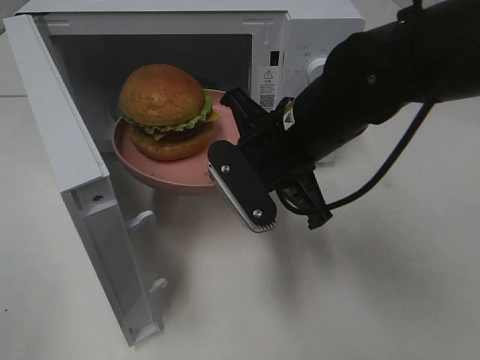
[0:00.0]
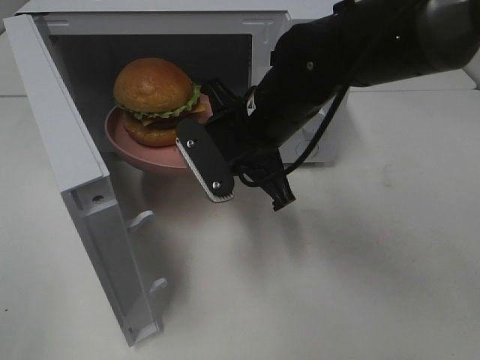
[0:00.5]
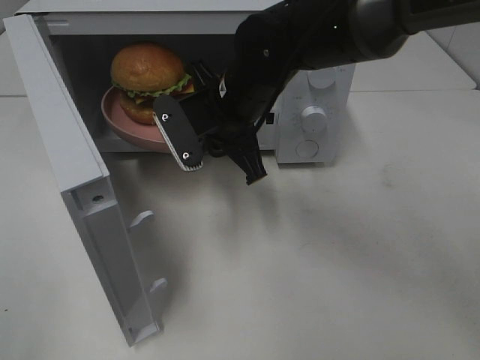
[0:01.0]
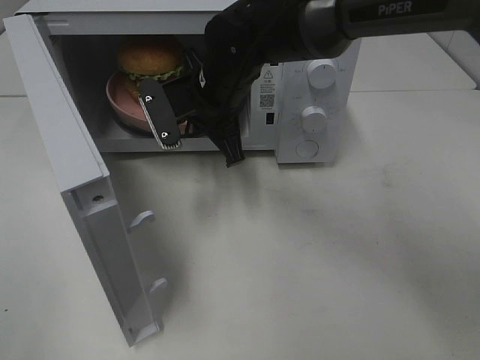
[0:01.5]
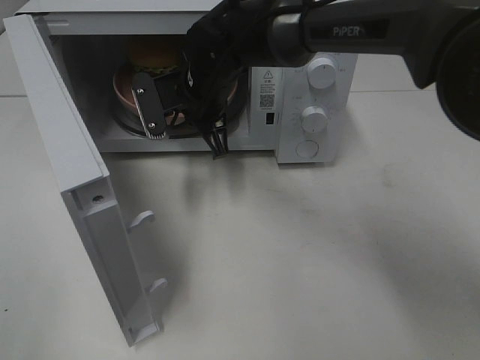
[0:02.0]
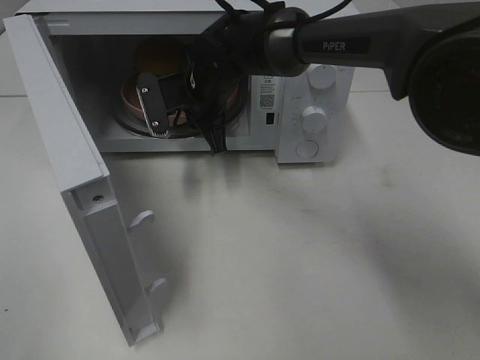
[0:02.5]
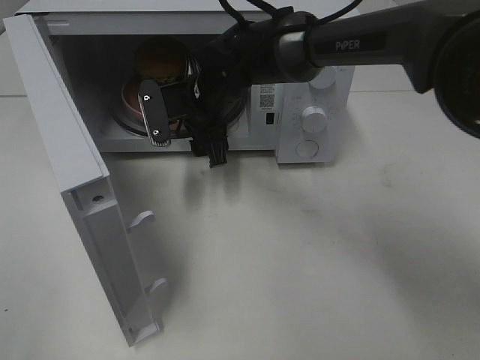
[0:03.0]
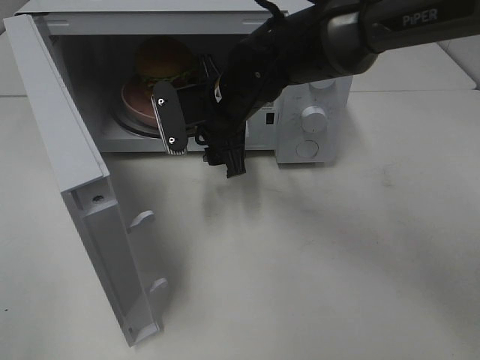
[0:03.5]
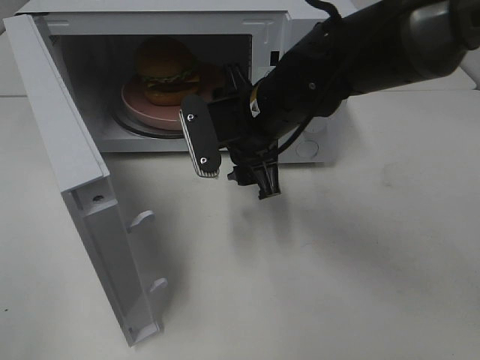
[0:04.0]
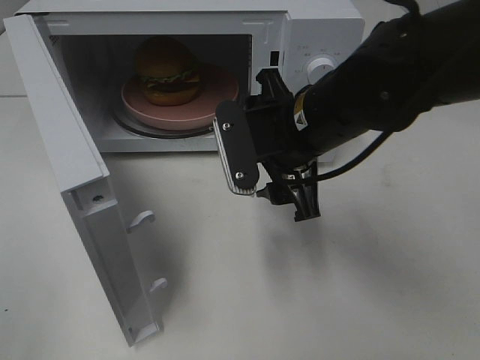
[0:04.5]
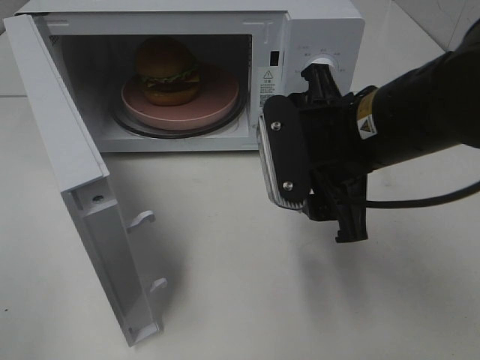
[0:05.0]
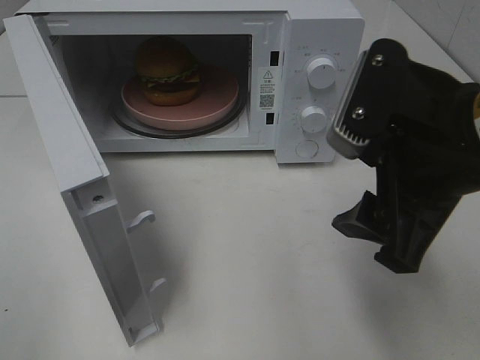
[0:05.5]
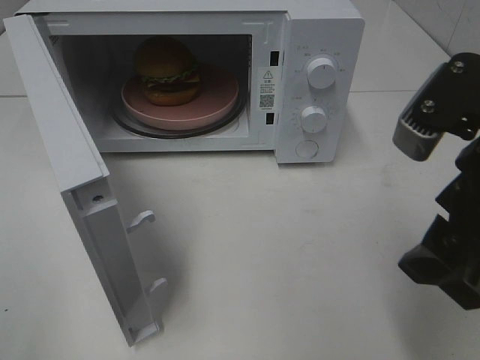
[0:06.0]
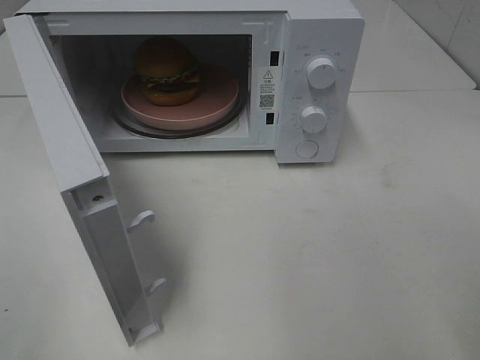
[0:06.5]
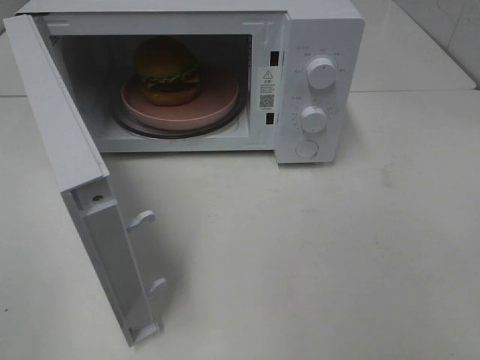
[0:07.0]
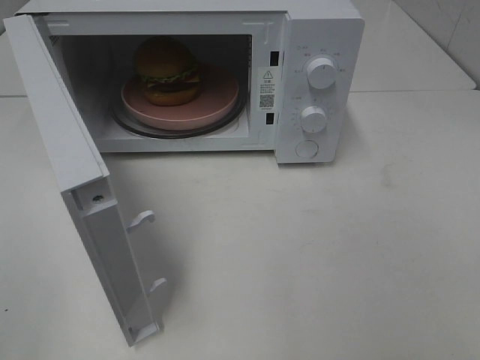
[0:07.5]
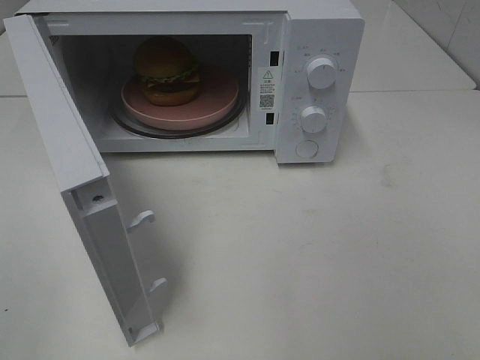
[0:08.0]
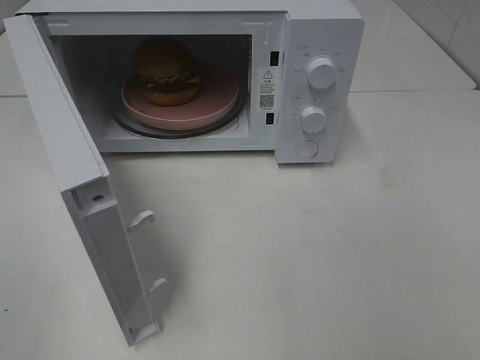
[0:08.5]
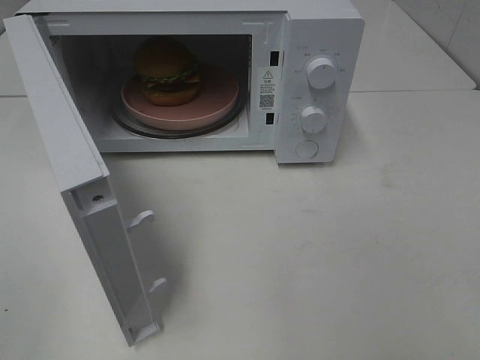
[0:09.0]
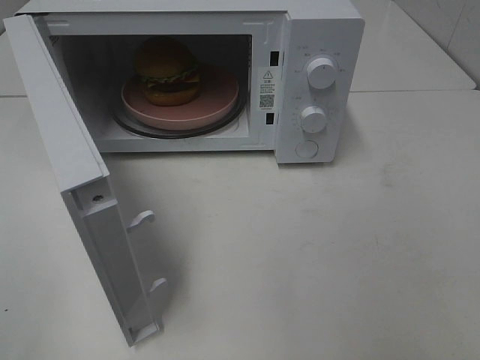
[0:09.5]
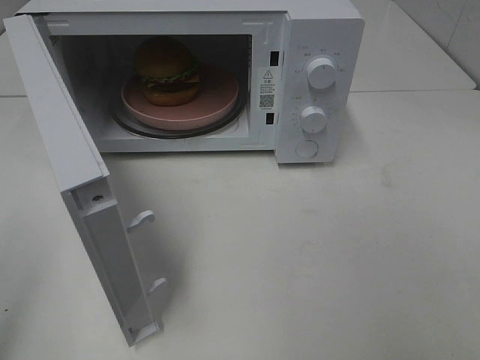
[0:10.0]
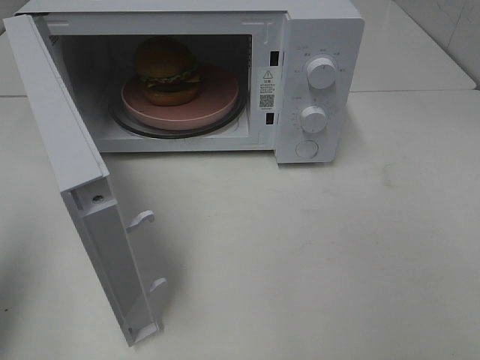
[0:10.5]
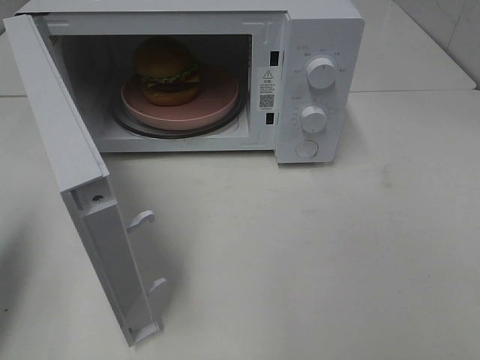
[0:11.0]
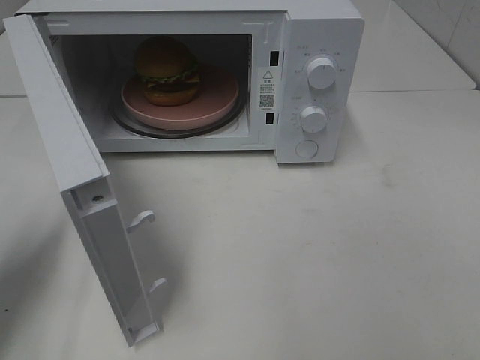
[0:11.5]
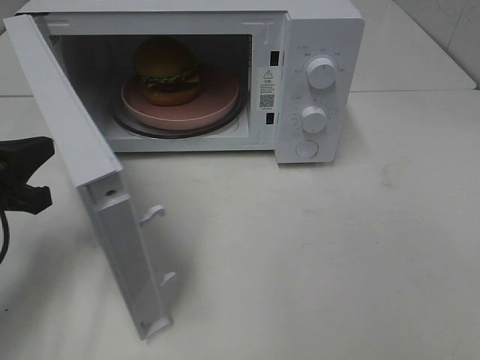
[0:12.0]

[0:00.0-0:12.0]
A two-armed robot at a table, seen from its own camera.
Task of the whole recording: Heat the burger.
Step, 0.0 to 3.0 s: Right hand: place the plate in the microwave.
0.0 to 2.0 s: The right gripper moves forward and to the left, approximately 15 cm.
2.0 to 4.0 s: The right gripper travels backward and to the right by about 10 cm, and opens.
4.0 to 6.0 s: The right gripper travels backward, to the right and upward by approximately 25 cm.
6.0 to 8.0 s: The right gripper heads backward and to the right, covering approximately 20 cm.
10.0 to 12.0 s: The left gripper goes approximately 25 cm forward and downward, and closes up.

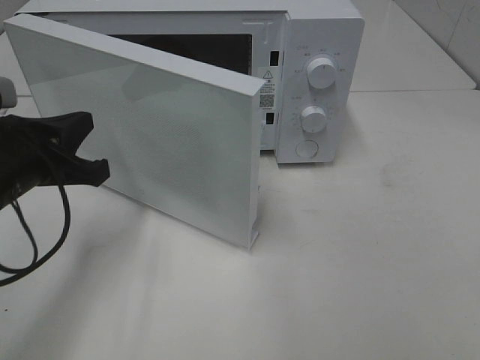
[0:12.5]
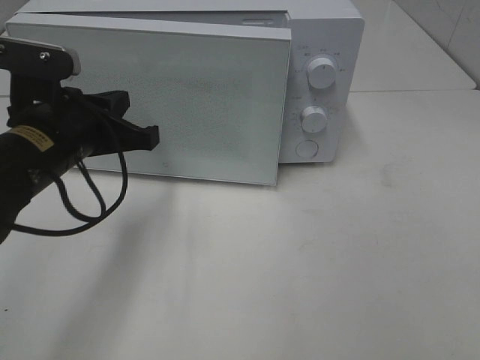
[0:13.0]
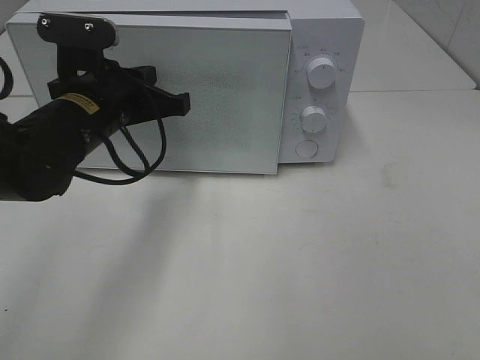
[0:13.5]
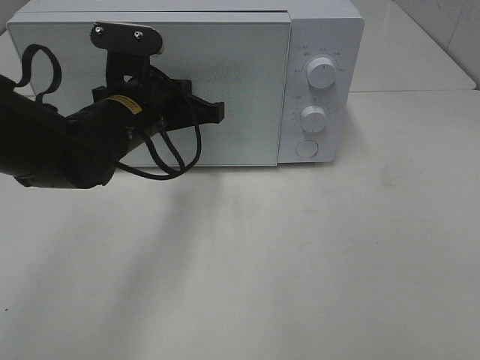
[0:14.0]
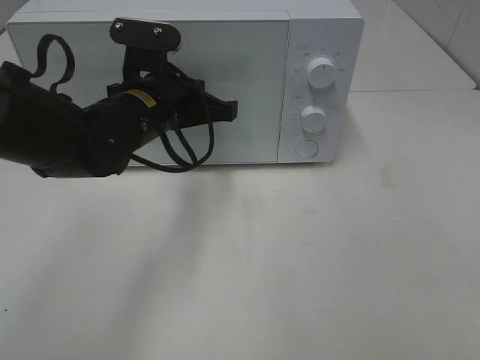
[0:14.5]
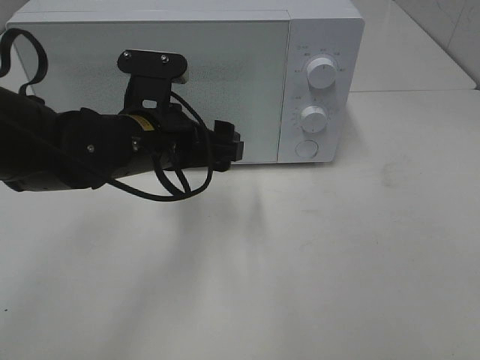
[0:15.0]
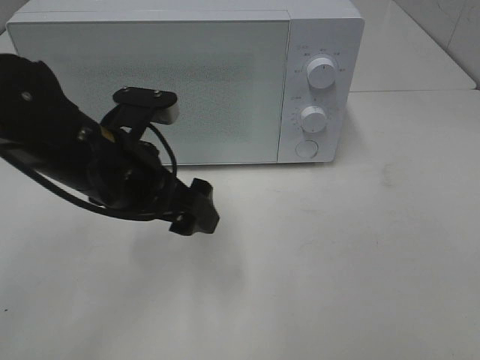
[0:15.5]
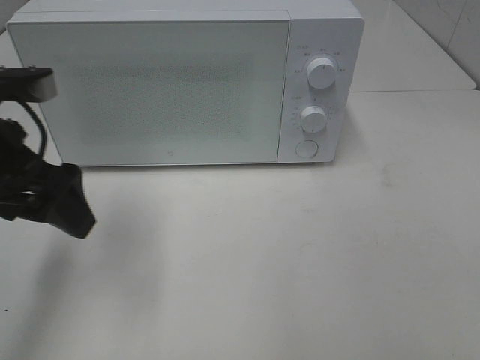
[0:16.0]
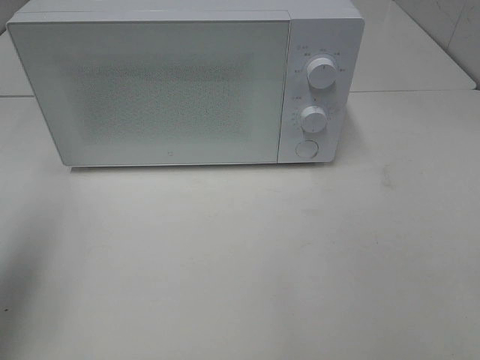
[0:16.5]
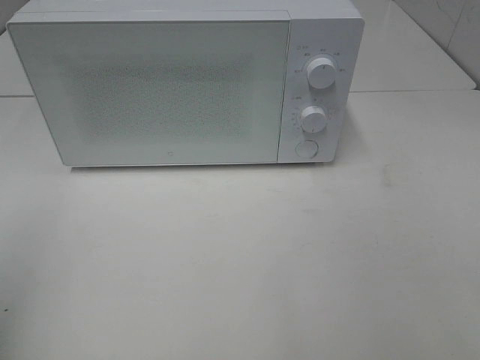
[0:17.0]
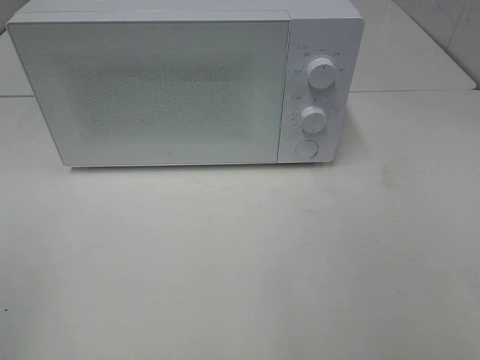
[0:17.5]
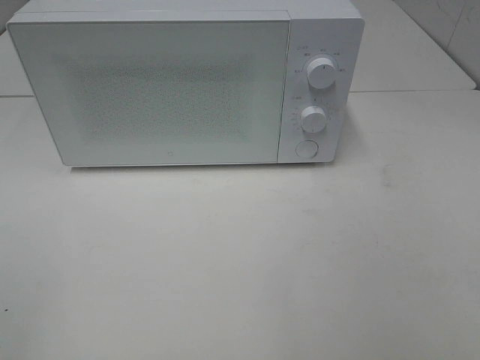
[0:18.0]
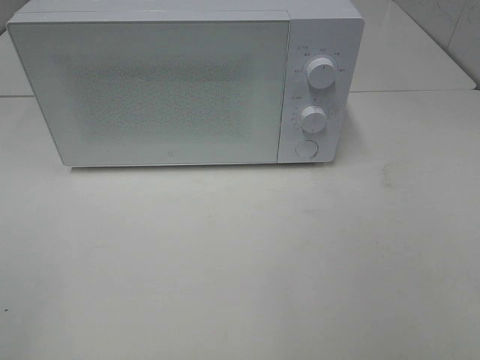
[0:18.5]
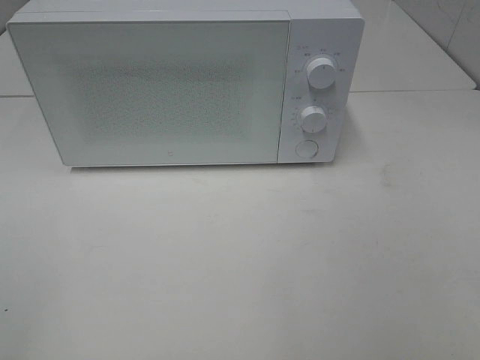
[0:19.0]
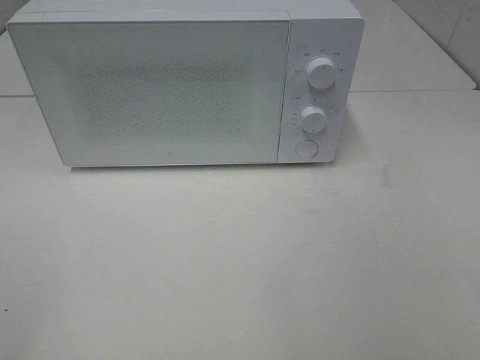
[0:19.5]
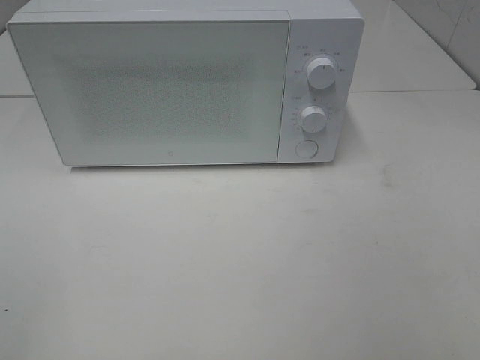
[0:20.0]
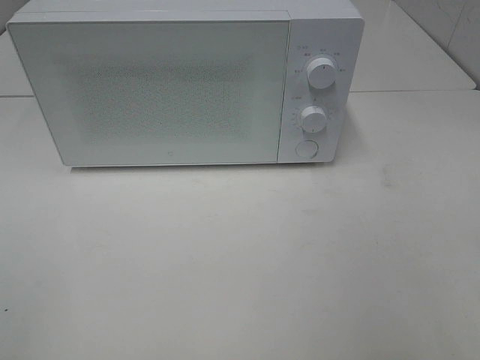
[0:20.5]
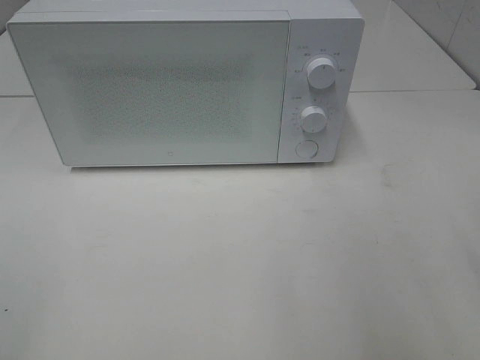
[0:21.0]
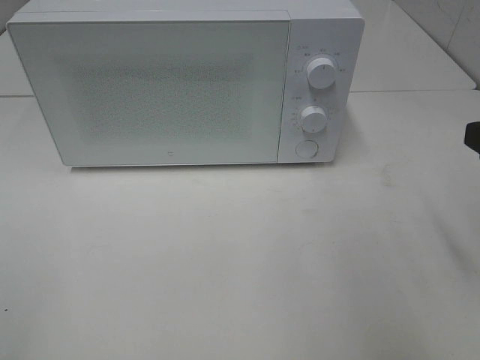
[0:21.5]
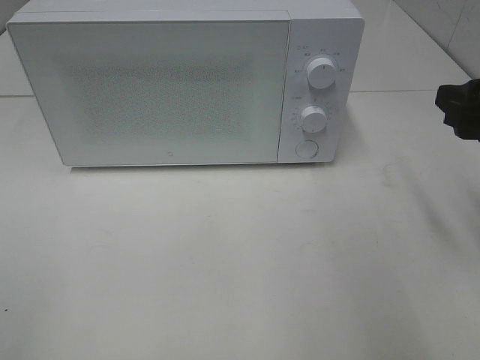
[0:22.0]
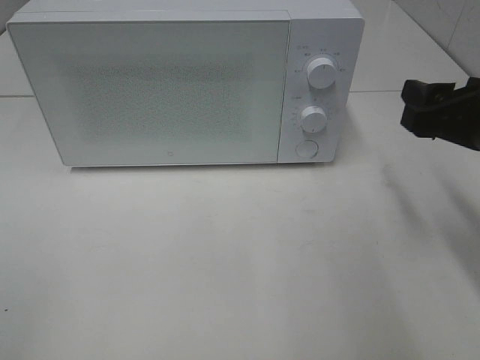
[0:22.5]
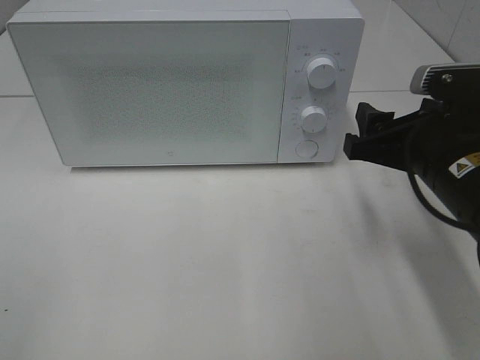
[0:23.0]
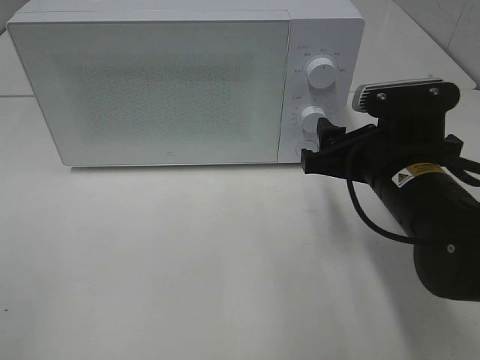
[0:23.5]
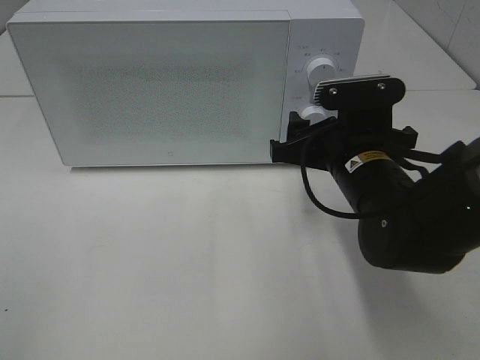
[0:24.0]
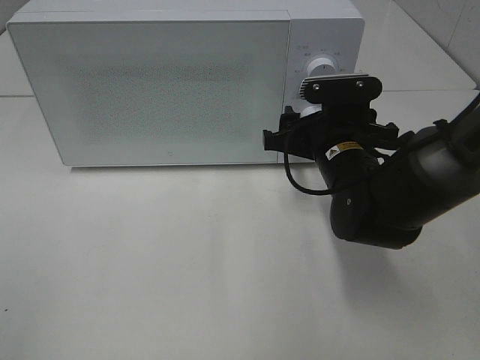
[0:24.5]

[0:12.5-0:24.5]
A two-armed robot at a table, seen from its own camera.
Task of the whole recording: Heat the burger.
Step, 12.5 to 15.0 s: Left hand: close the microwave door.
12.5 to 14.5 s: The left gripper heads to the right and forward, covering some 15 cm.
14.5 to 16.5 s: The left gripper goes about 30 cm to the left, backward and upward, and opens up.
16.5 to 18.5 s: The left gripper is displaced backward by roughly 20 cm.
20.5 to 22.5 s: The right gripper shifts roughly 20 cm forward and downward.
22.5 to 24.5 s: The right gripper is displaced to the left, downward and forward by about 15 cm.

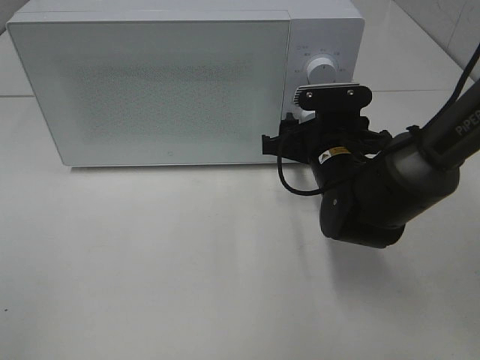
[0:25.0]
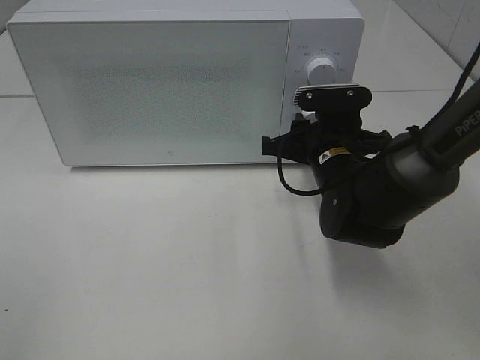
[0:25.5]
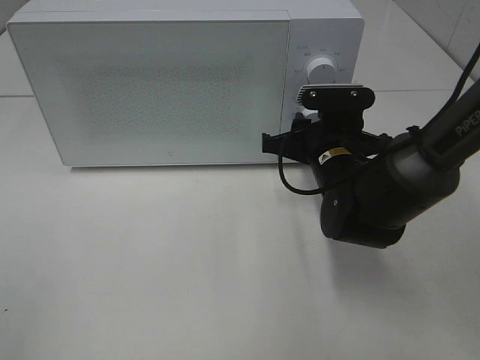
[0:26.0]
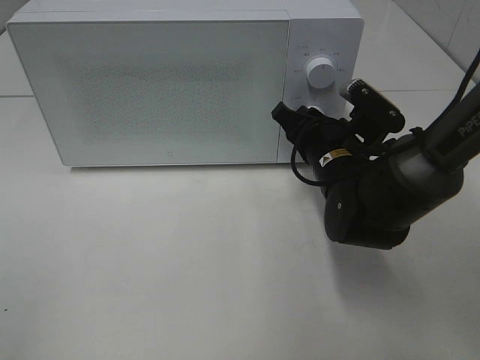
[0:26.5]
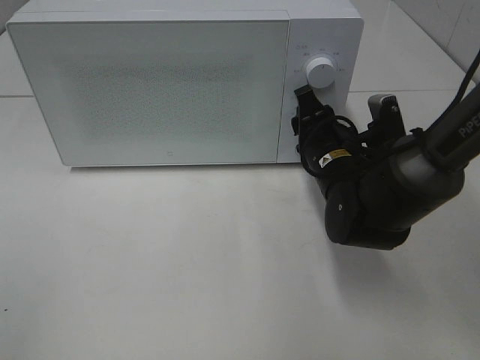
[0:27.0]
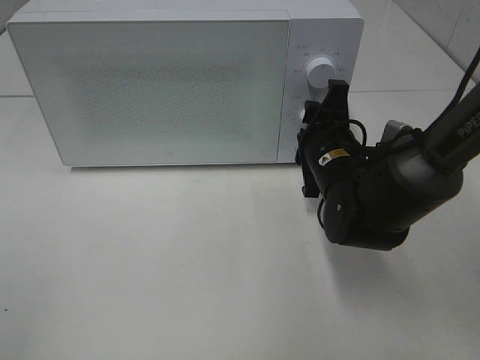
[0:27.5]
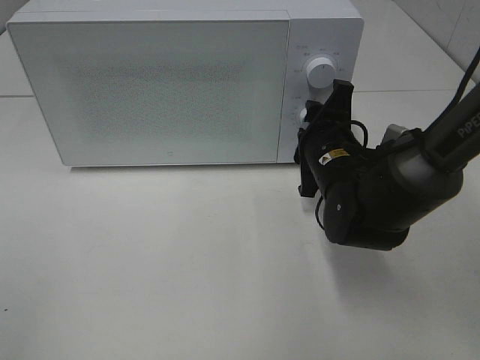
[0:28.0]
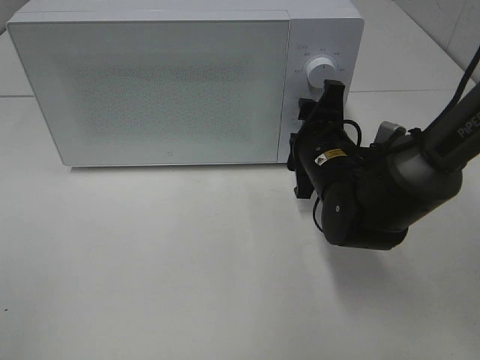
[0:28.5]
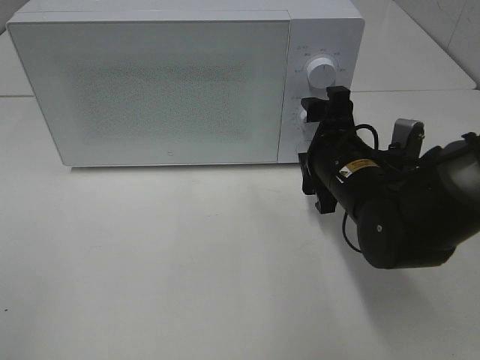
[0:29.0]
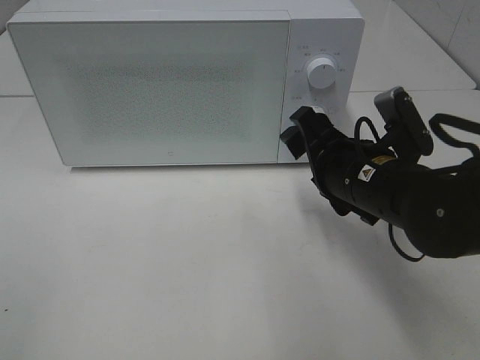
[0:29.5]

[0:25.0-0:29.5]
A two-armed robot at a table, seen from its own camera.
Task of the whole recording: Heat the burger.
Step, 25.0 to 28.5 s: Right hand: twist timer button.
27.0 to 29.5 s: The right gripper goes roughly 5 cm backward, and opens.
